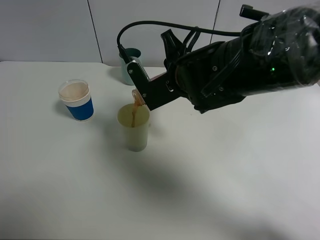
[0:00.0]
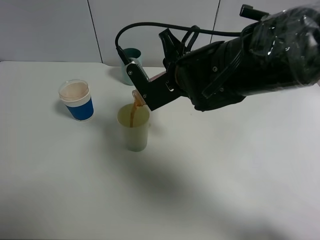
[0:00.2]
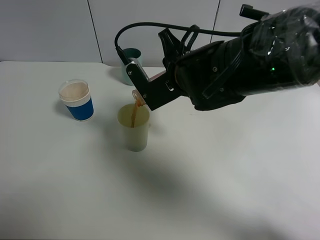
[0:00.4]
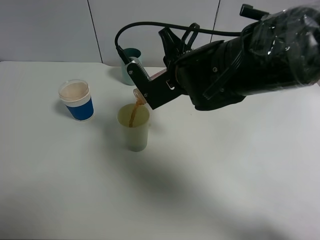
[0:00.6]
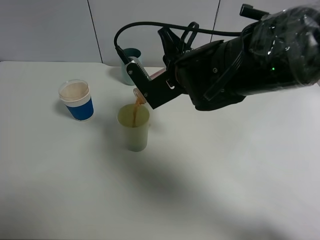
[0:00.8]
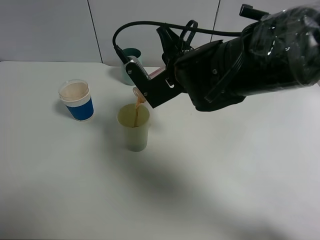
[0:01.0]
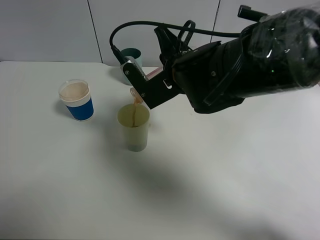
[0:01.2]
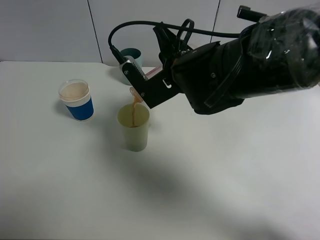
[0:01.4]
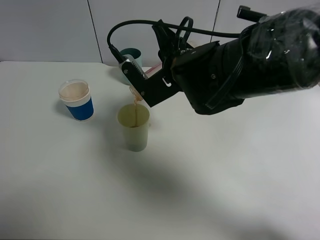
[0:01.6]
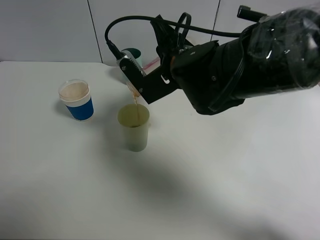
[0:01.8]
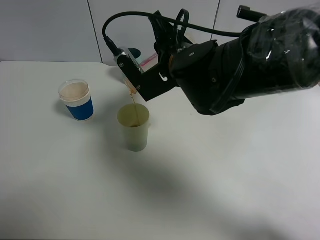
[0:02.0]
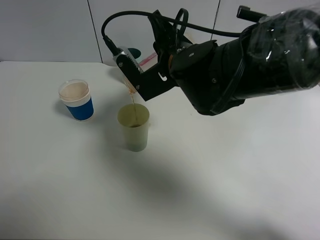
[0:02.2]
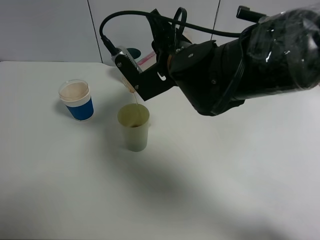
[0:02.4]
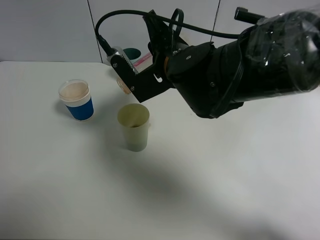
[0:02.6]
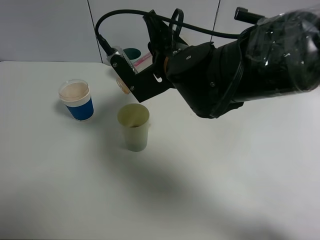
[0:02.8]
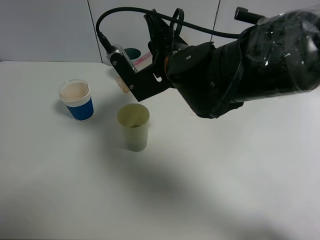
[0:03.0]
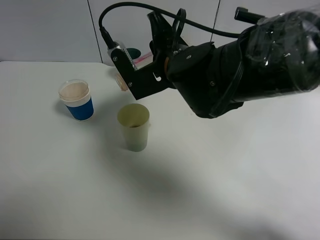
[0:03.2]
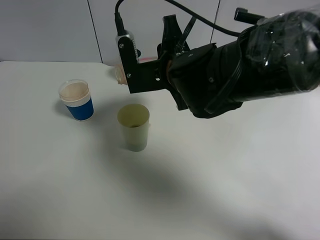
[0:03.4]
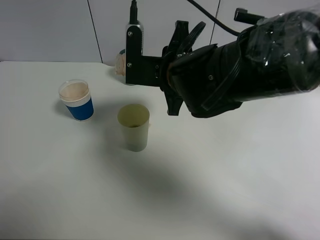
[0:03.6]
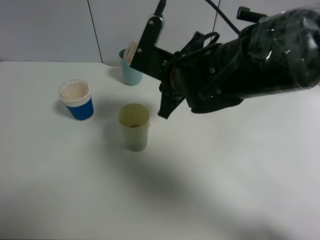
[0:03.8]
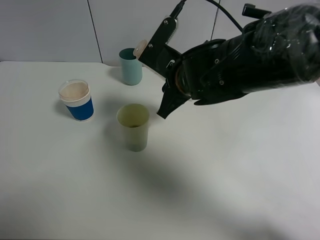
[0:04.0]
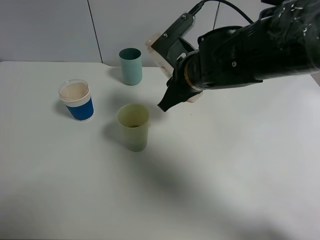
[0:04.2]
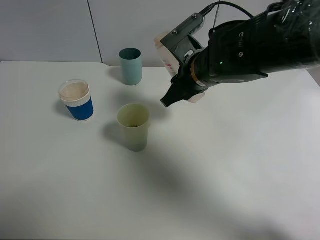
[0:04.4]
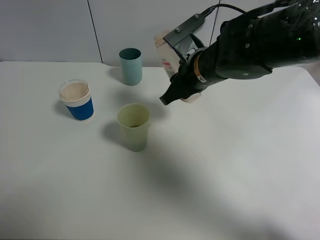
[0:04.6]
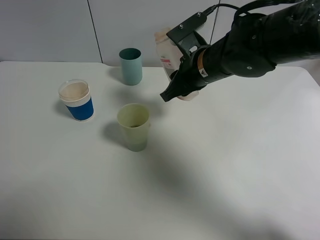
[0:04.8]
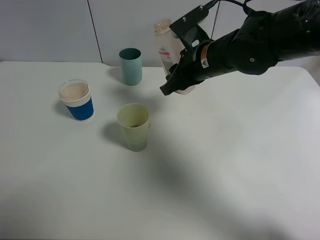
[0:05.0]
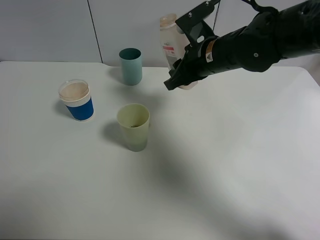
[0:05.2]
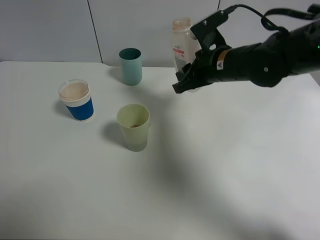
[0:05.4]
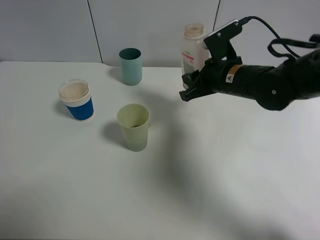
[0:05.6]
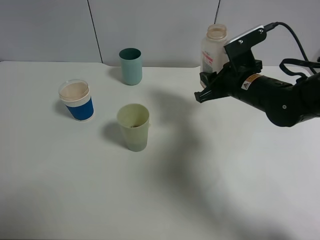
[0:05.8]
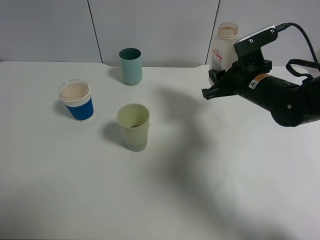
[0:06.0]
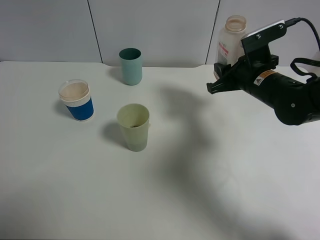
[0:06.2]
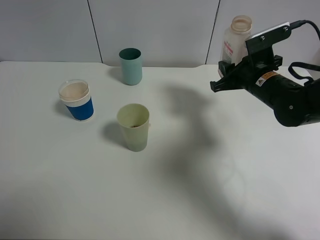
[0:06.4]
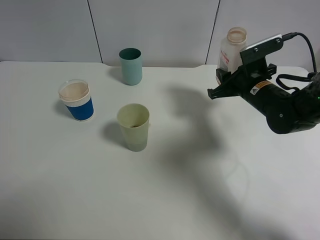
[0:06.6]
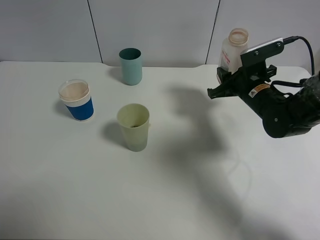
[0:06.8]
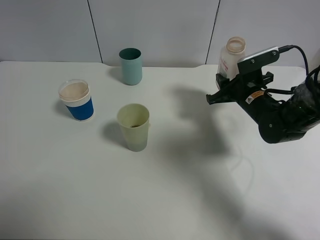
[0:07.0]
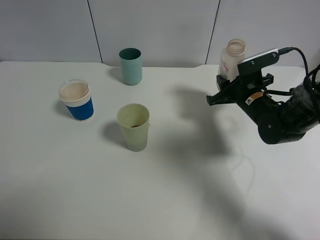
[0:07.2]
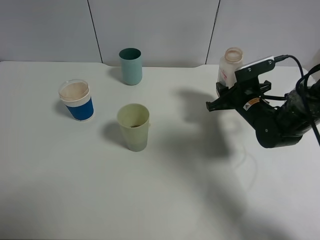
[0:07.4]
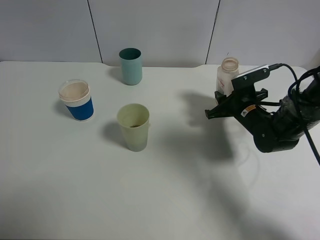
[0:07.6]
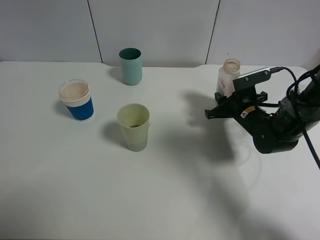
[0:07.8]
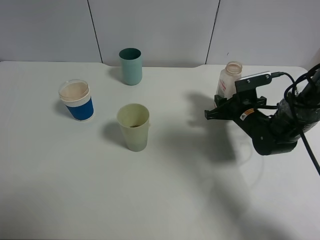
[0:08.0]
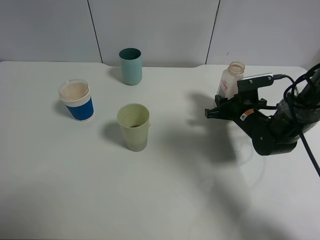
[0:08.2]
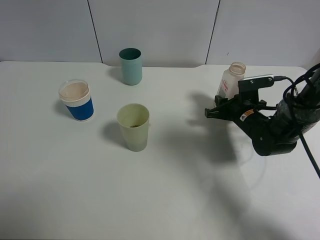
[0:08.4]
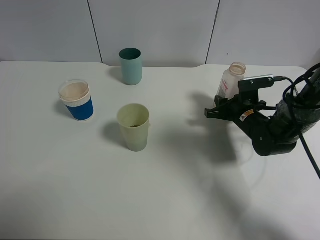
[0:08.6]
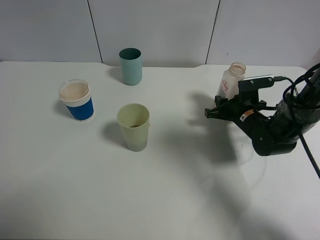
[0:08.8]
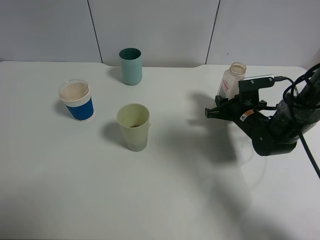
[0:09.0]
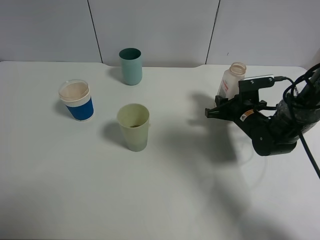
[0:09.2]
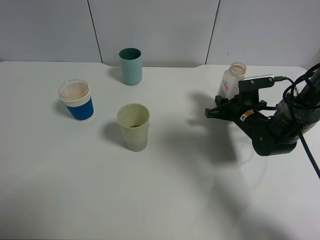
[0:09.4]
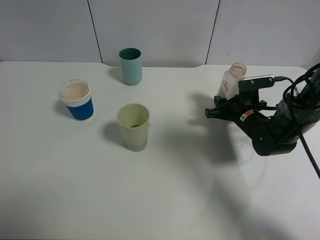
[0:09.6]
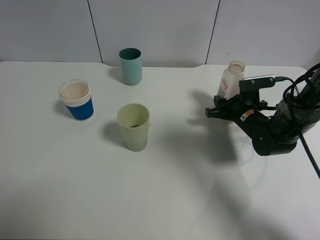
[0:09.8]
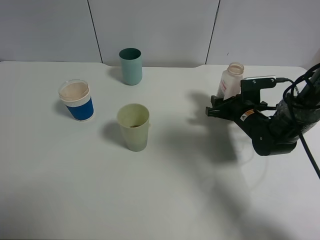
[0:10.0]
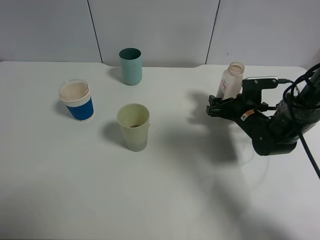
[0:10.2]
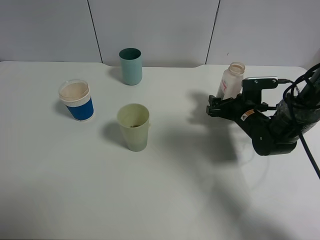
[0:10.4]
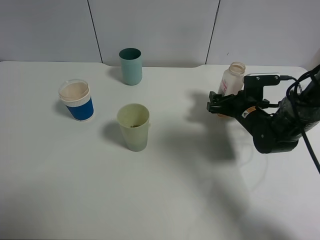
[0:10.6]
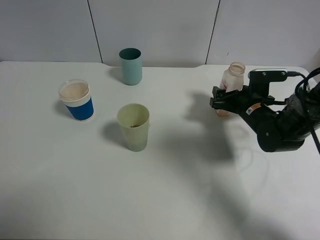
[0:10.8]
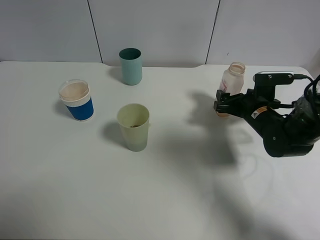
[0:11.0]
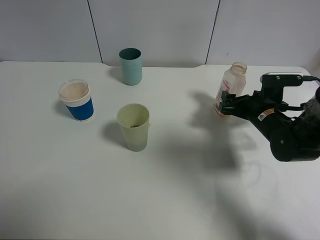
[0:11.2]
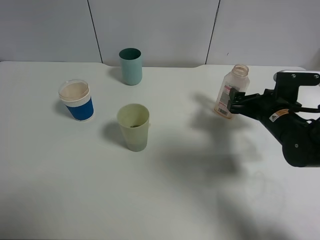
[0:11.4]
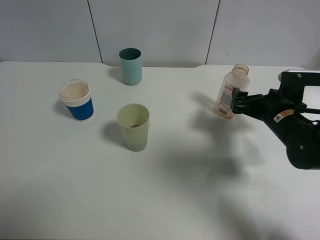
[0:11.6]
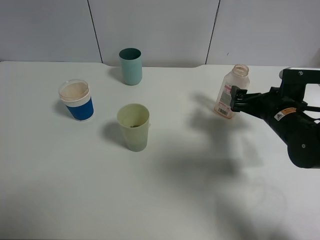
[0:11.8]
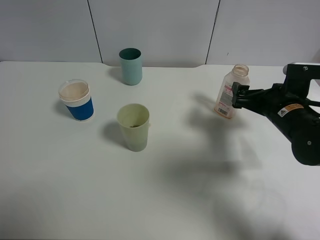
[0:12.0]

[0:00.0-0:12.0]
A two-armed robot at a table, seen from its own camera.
Task of the whole recording: use a clamp to hold the bottle of the drink, pour the beverage into a random cup, then clamp the cup containing the drink and pour the drink into another random cup.
Step, 0:00.0 to 0:03.6: Pour the drink into the green plastic cup with right gripper.
Step, 0:03.8 to 0:10.8: Place the drink bottle on the table with right gripper.
0:00.0 to 0:03.0: The grippers move only a little.
0:03.0 to 0:04.4: The right gripper shifts by roughly 5 cm.
0:04.4 to 0:06.0: The right gripper is displaced to the right by about 10 cm.
0:06.0 to 0:07.6: The right gripper goes about 10 cm downward.
0:07.6 to 0:09.0: The grippers stay close to where they were, moving slightly.
0:09.0 to 0:10.4: The right gripper opens its fingers.
0:10.4 to 0:12.0: The right gripper heads upward and backward, covering some 10 cm.

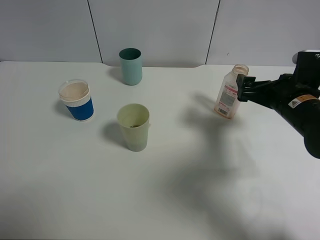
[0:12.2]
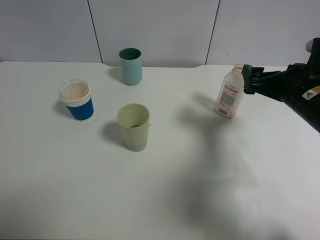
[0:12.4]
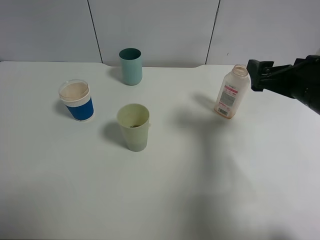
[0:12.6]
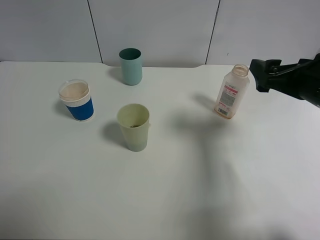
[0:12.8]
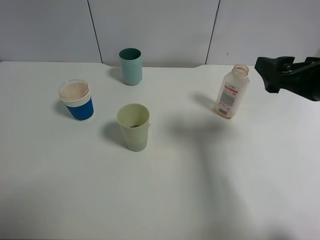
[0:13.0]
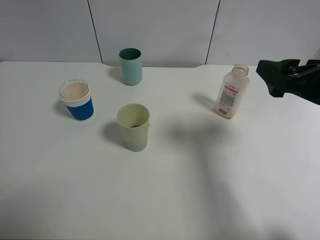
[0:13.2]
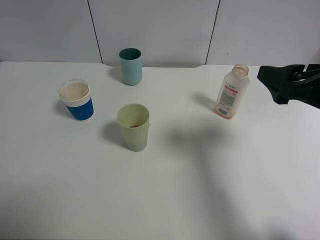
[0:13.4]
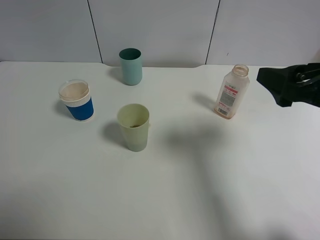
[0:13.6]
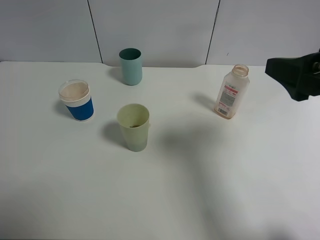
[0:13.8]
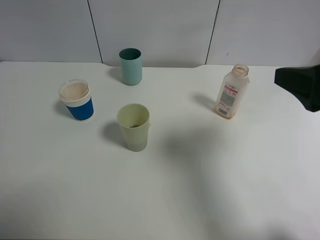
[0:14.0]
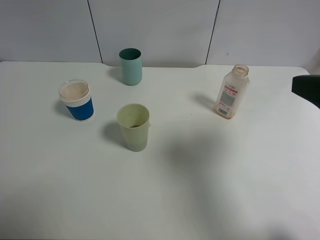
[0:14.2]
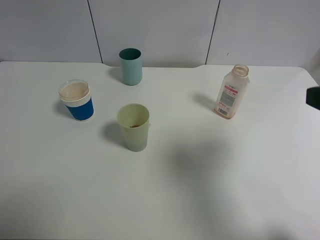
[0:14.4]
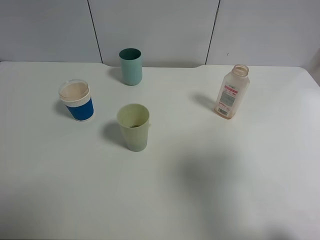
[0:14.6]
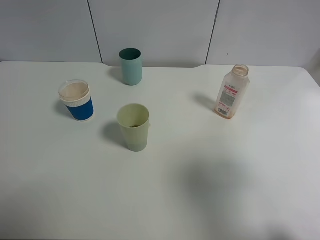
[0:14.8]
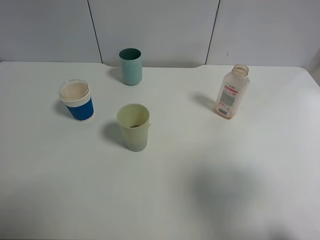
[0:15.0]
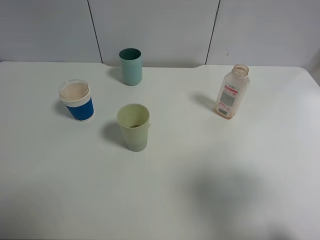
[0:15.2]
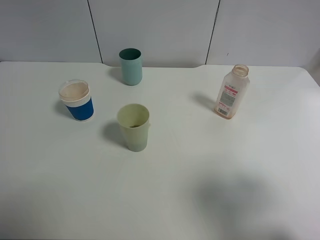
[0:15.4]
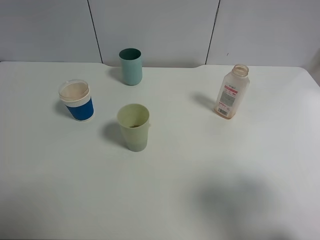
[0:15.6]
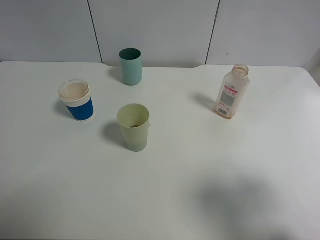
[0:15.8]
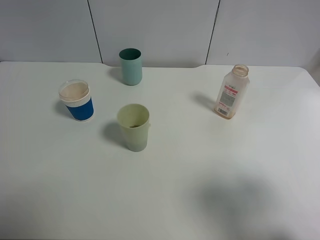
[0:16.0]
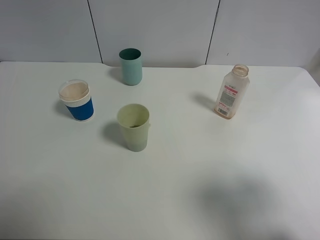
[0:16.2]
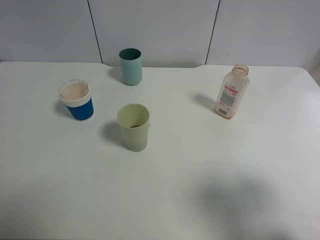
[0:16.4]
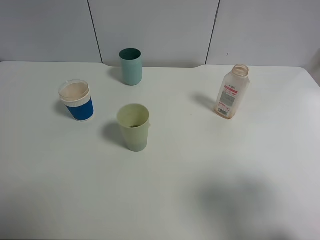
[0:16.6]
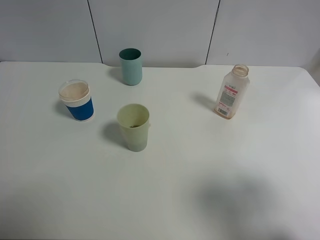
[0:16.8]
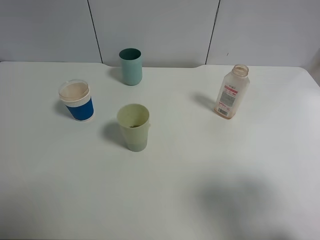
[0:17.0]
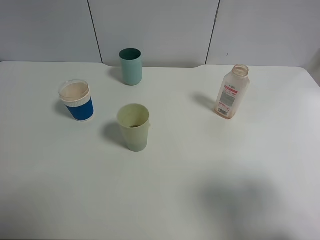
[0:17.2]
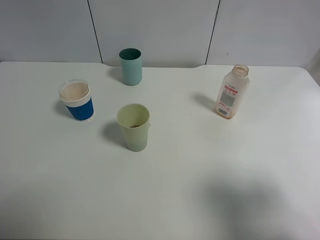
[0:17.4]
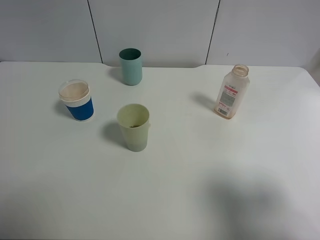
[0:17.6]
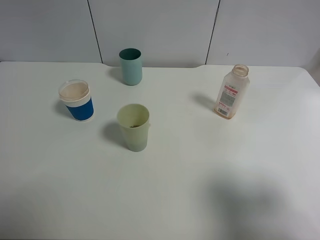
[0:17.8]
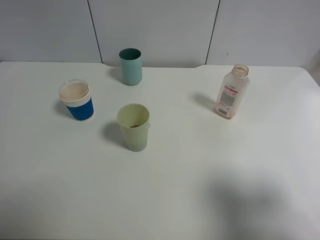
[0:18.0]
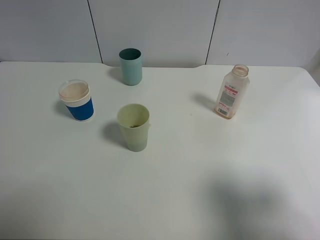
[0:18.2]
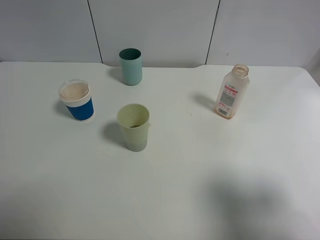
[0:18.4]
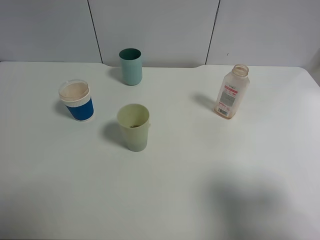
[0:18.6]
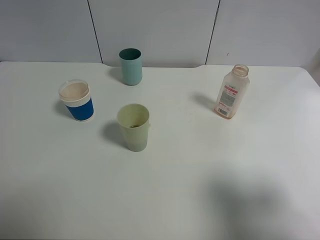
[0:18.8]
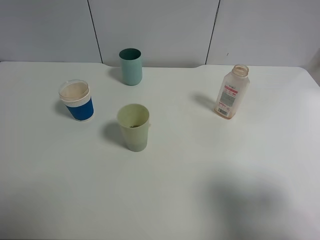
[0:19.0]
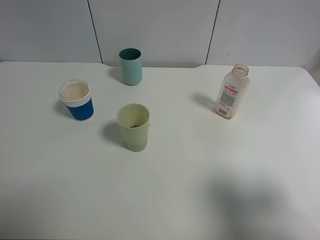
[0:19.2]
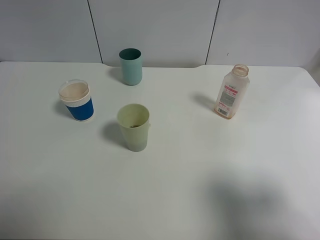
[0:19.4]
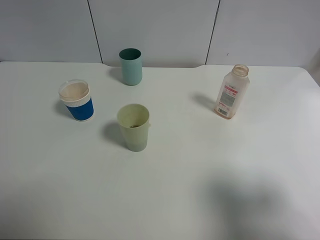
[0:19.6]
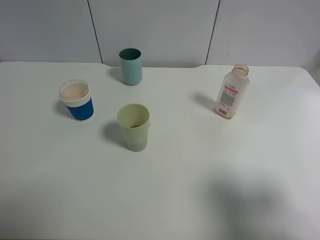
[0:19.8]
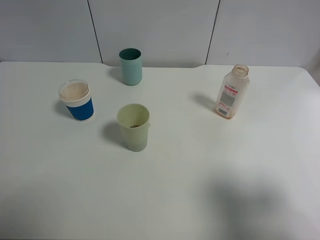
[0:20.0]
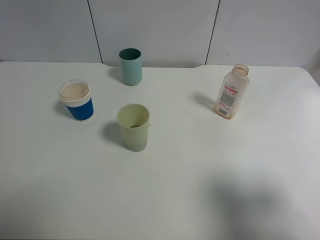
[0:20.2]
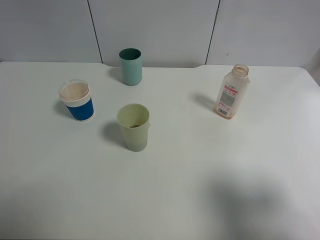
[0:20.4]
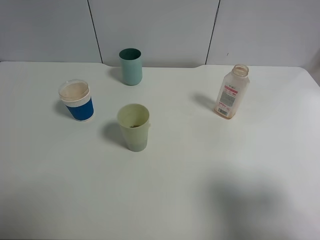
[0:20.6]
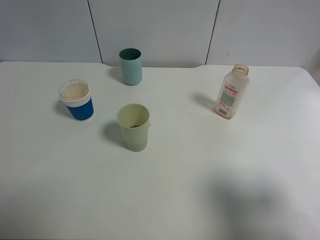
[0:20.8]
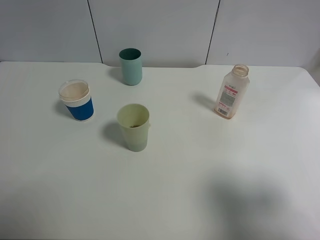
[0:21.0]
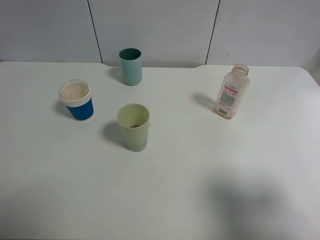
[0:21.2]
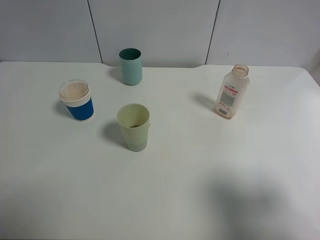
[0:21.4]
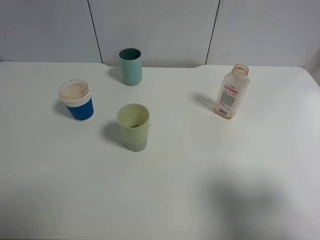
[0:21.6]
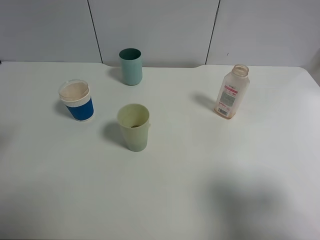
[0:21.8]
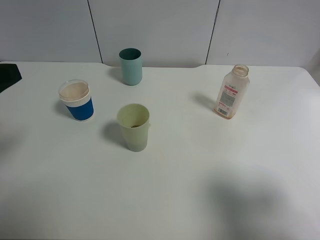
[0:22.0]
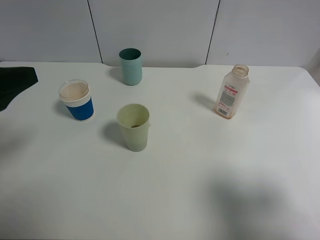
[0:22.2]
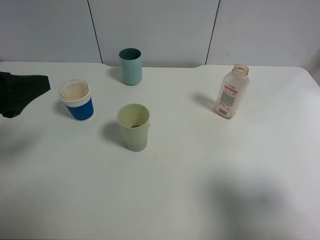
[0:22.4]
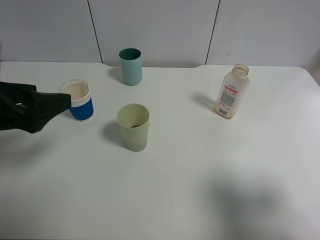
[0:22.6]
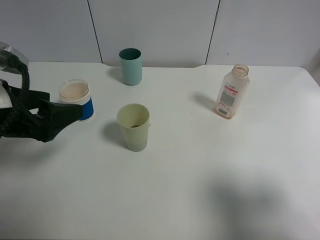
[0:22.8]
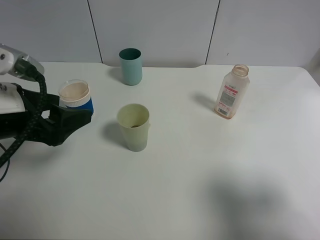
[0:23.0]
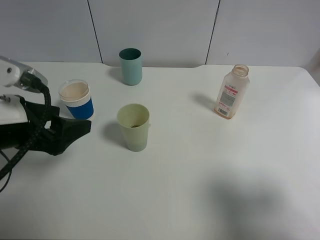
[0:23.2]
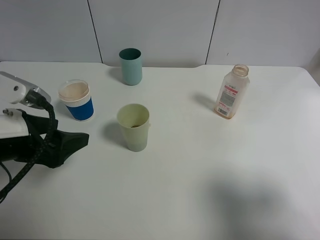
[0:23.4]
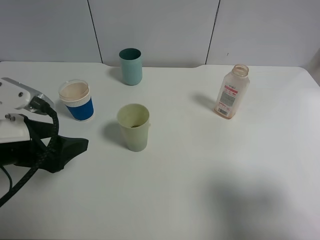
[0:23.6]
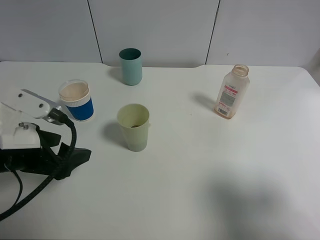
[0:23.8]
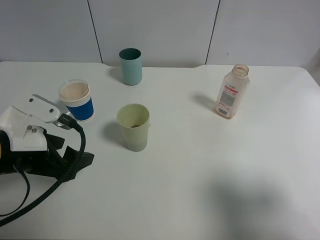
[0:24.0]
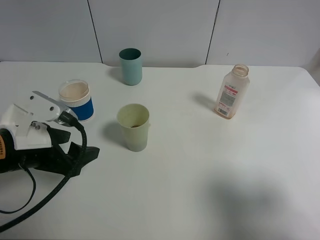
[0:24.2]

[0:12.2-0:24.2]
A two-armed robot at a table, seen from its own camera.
Task of the whole recording: use a clamp to hold the bottle of the drink, pour the beverage into a random cup, then clamp the cup containing the drink and pour the drink into another random cup.
0:12.2 to 0:13.8: The right gripper is displaced upward and backward by approximately 15 cm.
0:13.8 to 0:15.2: The right gripper shifts about 10 cm backward.
0:18.2 to 0:19.8: Neither gripper changes place.
0:21.2 to 0:22.6: The left gripper heads downward and to the right, covering some 15 cm.
0:22.6 to 0:24.2: The left gripper shifts some 10 cm downward.
